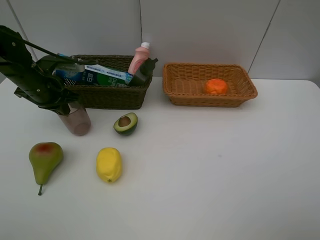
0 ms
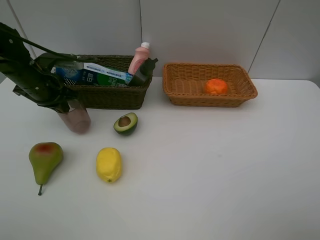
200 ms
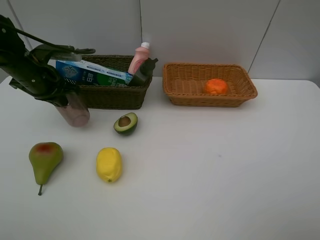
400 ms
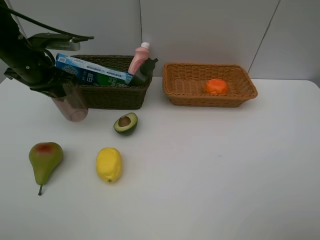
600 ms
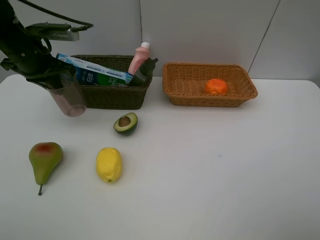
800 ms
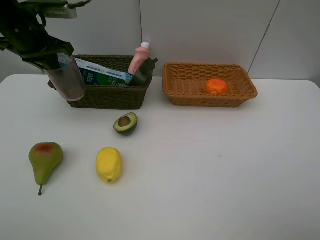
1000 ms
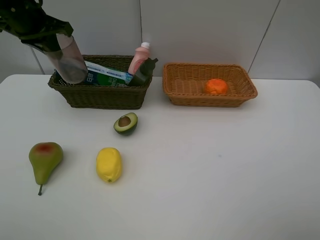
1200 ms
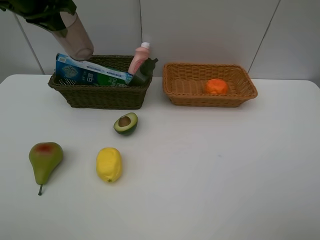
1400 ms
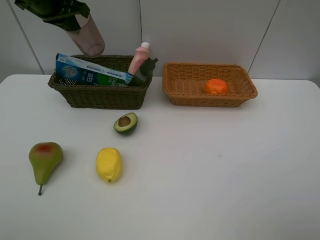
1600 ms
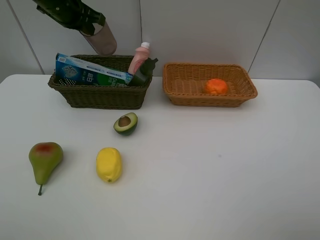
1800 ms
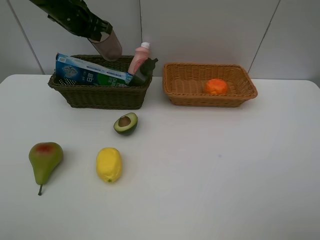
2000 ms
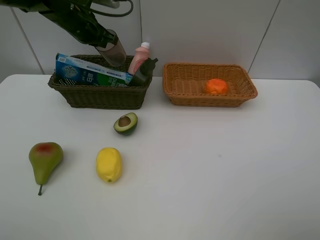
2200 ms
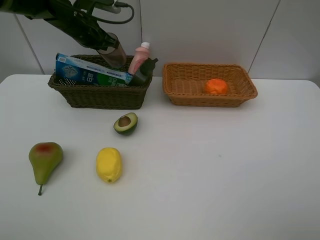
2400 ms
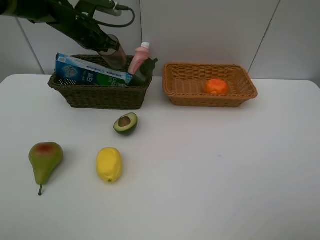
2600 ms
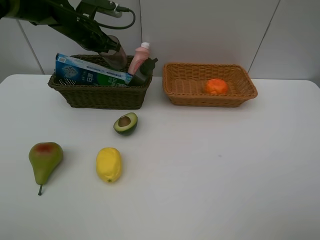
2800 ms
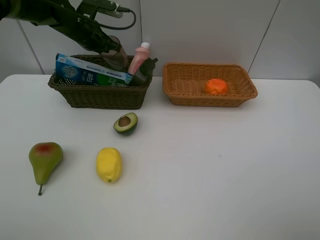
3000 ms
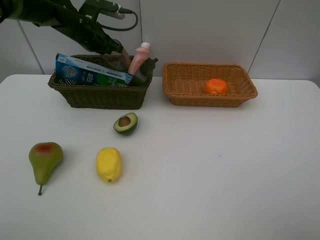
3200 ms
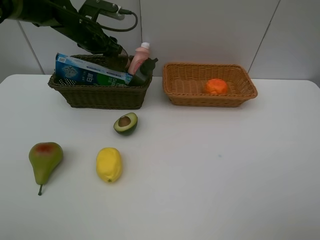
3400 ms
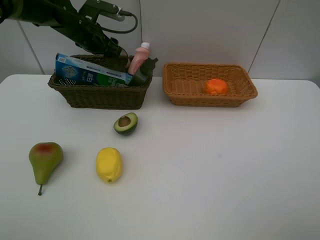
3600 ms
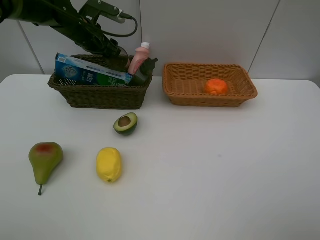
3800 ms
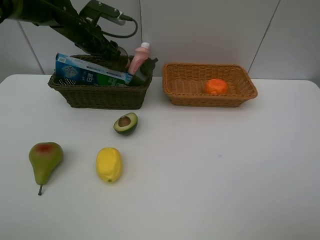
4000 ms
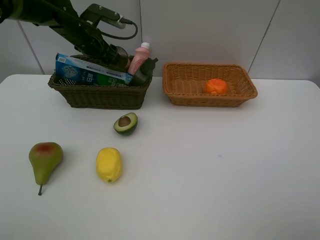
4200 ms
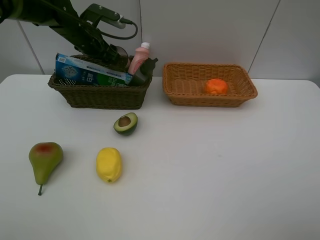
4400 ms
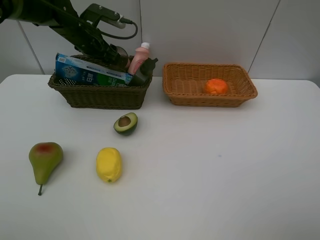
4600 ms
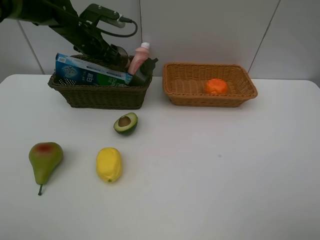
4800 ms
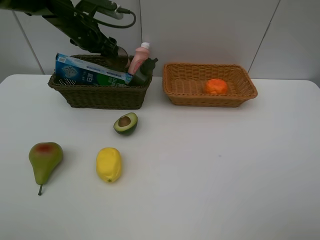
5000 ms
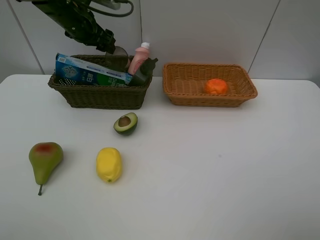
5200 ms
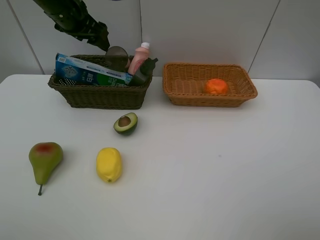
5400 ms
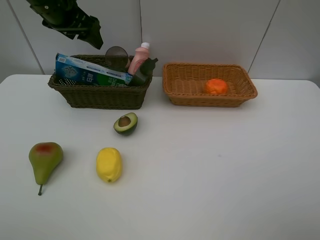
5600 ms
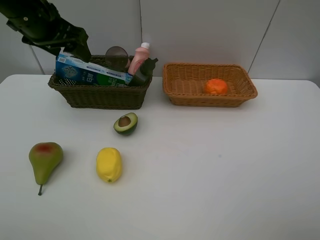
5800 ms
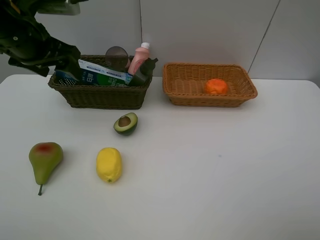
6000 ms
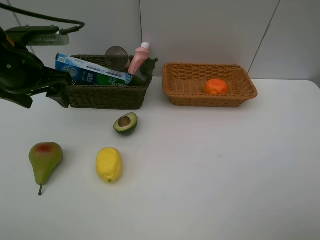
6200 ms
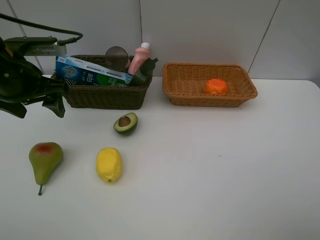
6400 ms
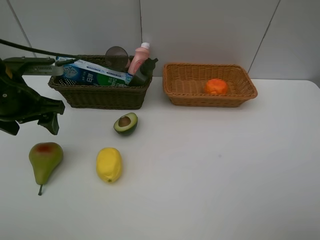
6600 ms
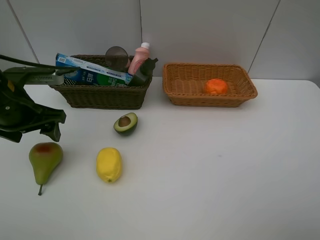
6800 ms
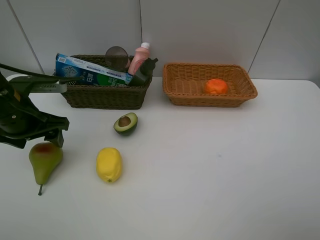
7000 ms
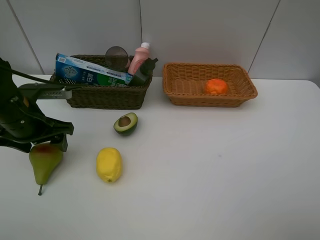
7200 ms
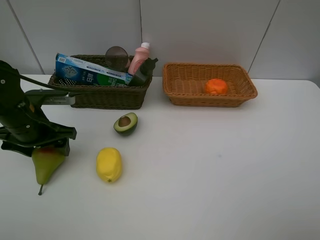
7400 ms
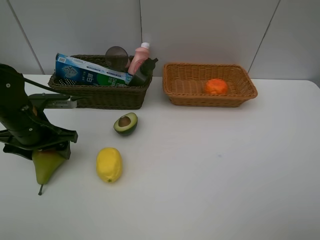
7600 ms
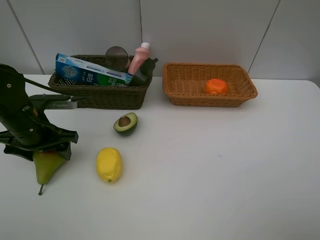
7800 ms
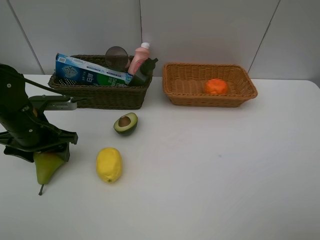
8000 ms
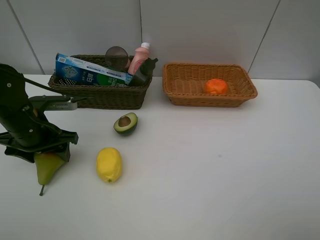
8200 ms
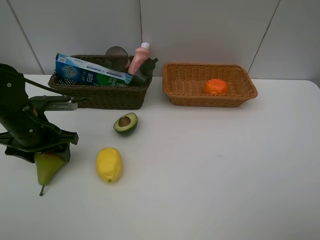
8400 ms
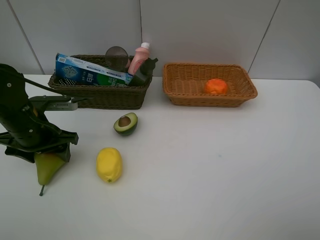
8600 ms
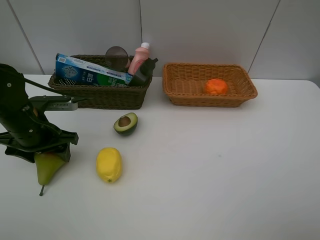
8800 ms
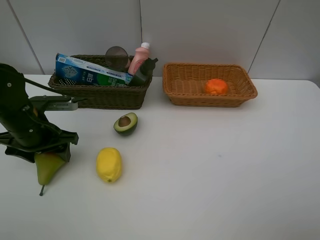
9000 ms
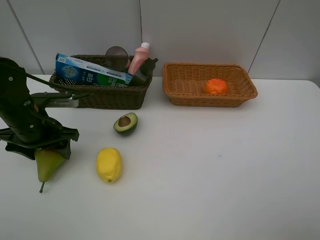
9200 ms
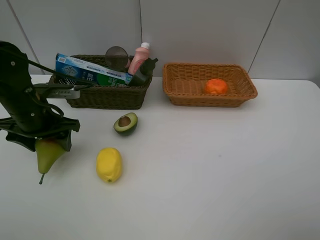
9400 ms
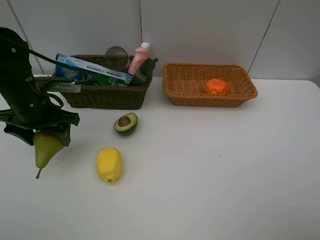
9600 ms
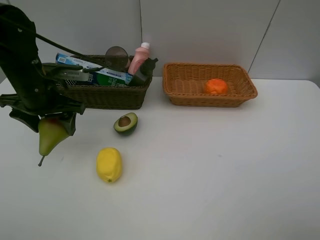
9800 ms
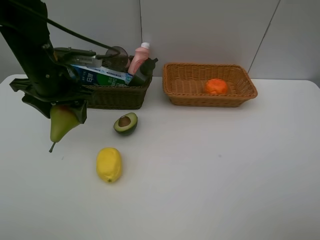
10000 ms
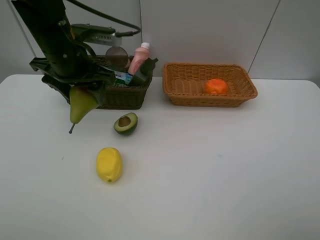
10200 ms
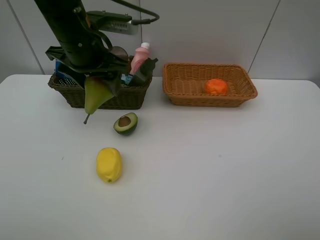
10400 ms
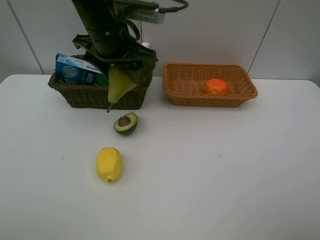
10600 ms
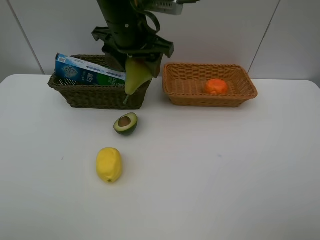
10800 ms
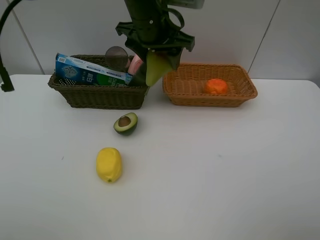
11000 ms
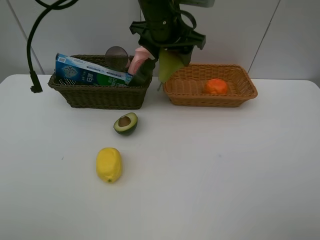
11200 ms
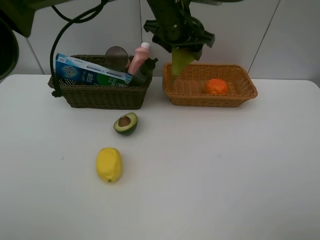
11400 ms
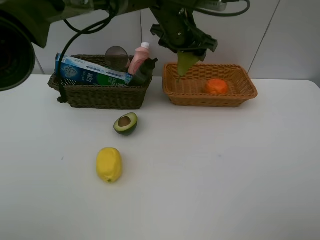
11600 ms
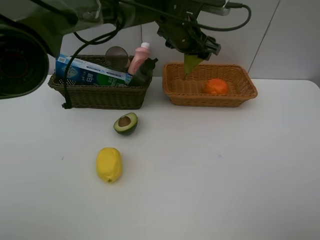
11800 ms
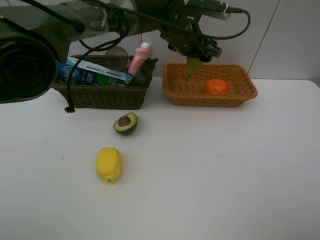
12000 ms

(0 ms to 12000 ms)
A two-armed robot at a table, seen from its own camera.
Task of the whole recording: Place multiple objects separately in different baskets.
Step, 600 ms - 5000 ms: Place the red cup in the dark basket with left gripper.
Step, 5200 ms - 9200 ms: Pick up the pear with left gripper.
0 ms - 1600 ms: The left gripper shifts approximately 15 cm upward and forward.
1600 ms - 3000 ms: The left gripper shifts about 10 cm downward and forward.
3000 ms - 4400 ms: The left gripper opens up.
4400 ms - 6000 ms: The left gripper is displaced backward and upward by roughly 20 cm.
6000 ms - 7600 ms: The left gripper heads downward, covering some 15 cm.
7600 ms - 9000 ms: The two grippers keep their place.
9000 ms - 10400 ms: The left gripper heads upward, to the right and forward, covering roughly 20 cm.
10400 ms - 12000 ms: The left gripper heads to the right and forward, covering roughly 20 cm.

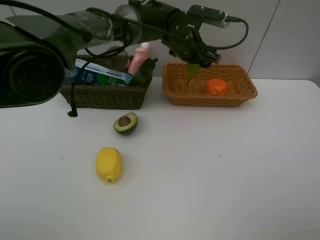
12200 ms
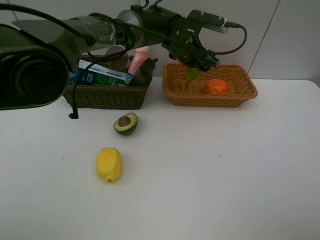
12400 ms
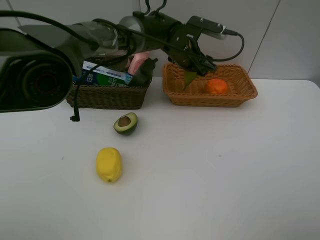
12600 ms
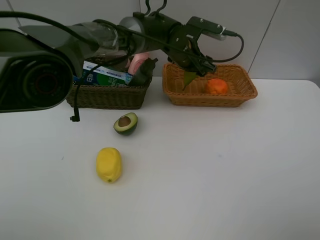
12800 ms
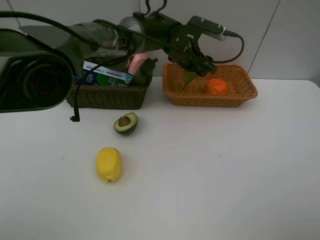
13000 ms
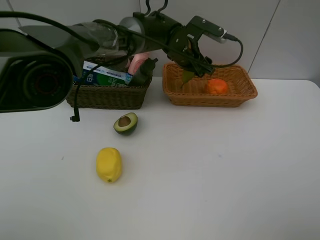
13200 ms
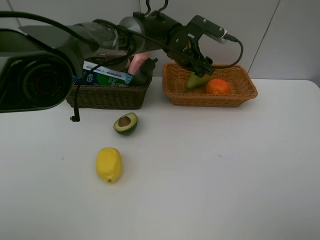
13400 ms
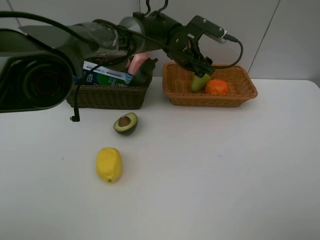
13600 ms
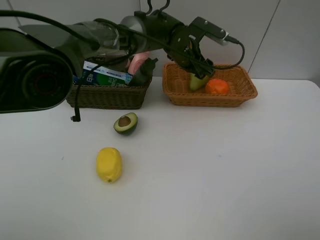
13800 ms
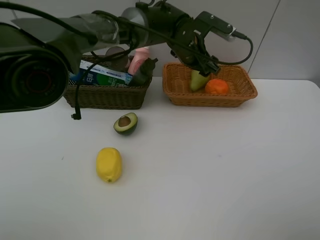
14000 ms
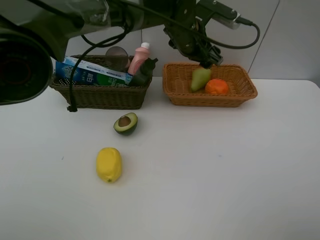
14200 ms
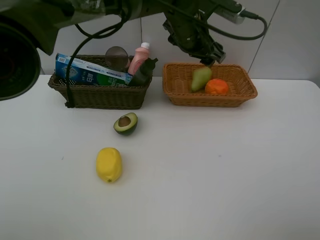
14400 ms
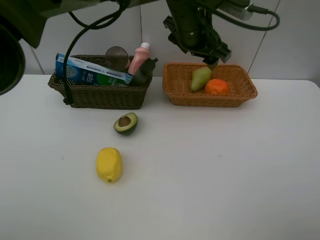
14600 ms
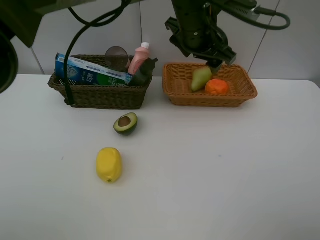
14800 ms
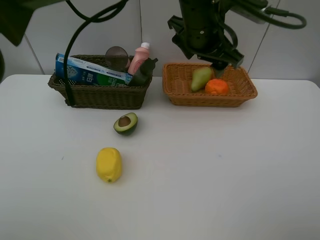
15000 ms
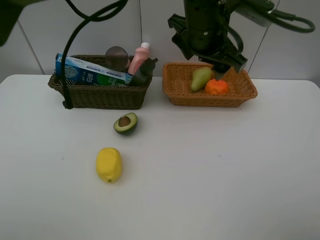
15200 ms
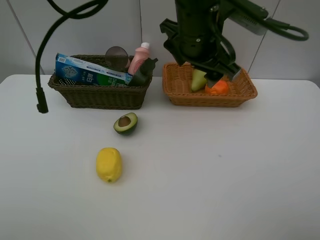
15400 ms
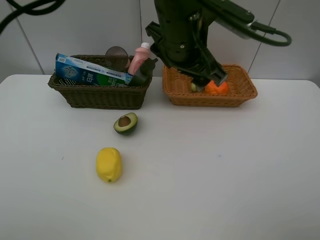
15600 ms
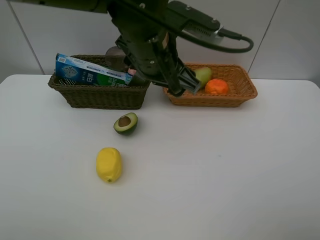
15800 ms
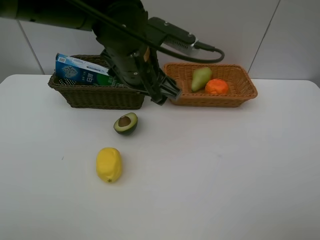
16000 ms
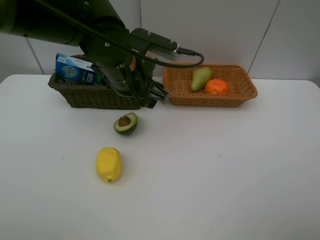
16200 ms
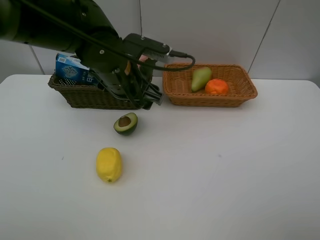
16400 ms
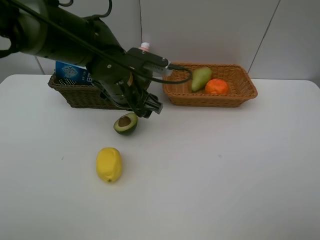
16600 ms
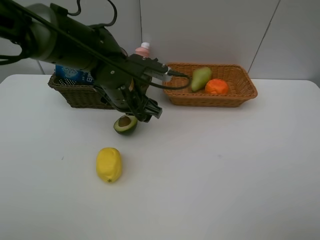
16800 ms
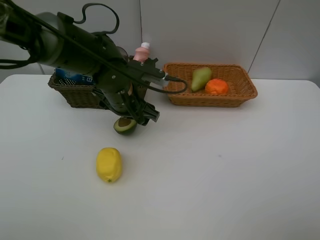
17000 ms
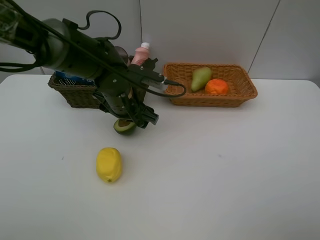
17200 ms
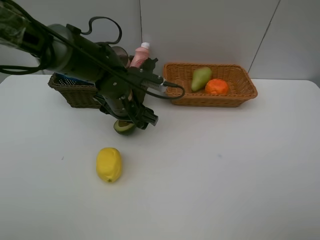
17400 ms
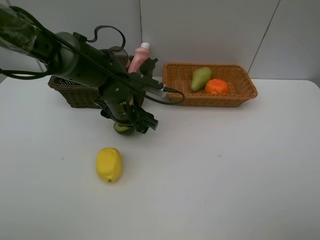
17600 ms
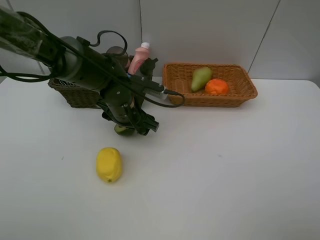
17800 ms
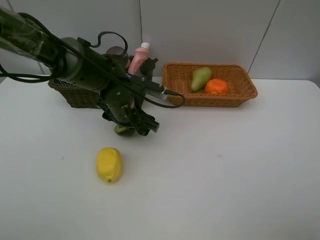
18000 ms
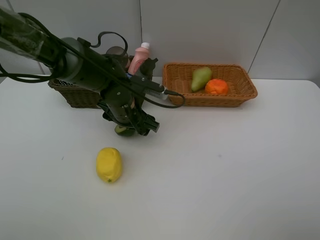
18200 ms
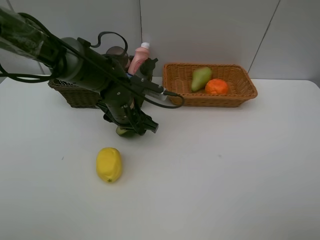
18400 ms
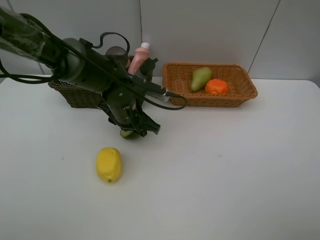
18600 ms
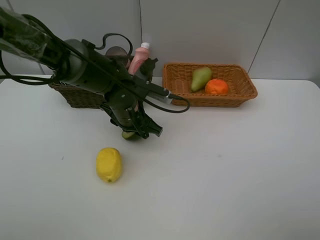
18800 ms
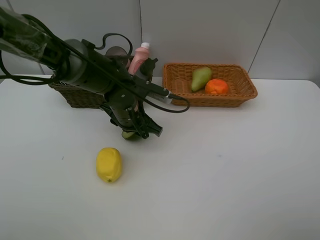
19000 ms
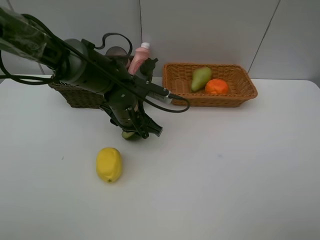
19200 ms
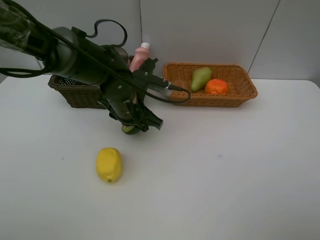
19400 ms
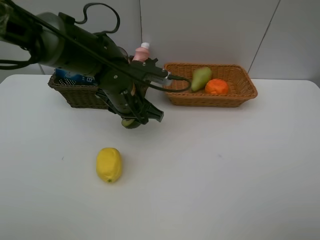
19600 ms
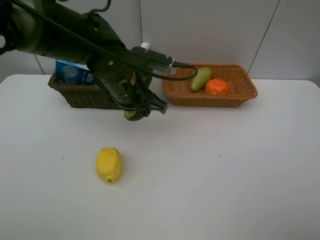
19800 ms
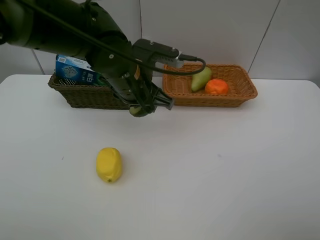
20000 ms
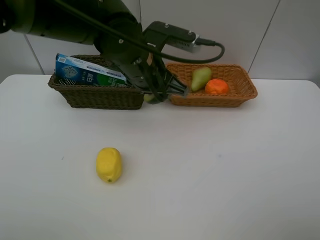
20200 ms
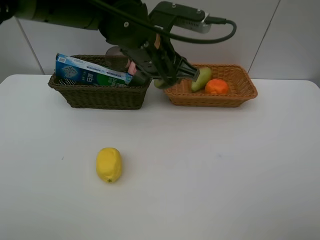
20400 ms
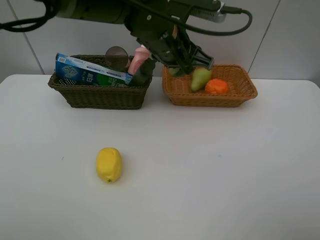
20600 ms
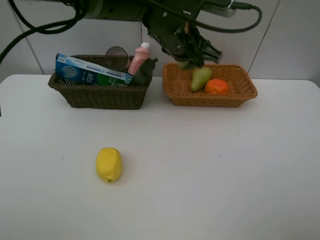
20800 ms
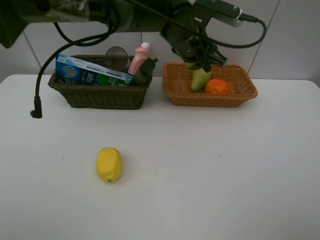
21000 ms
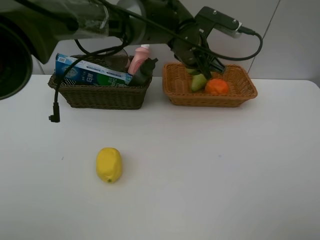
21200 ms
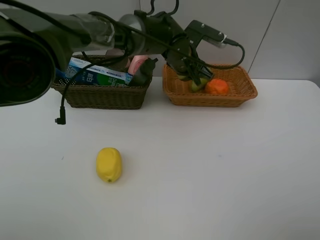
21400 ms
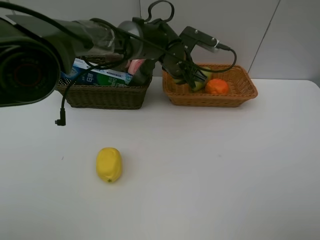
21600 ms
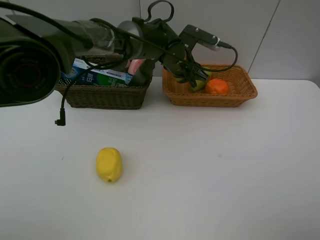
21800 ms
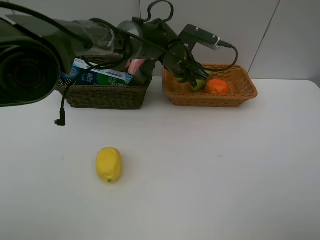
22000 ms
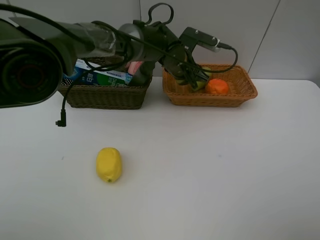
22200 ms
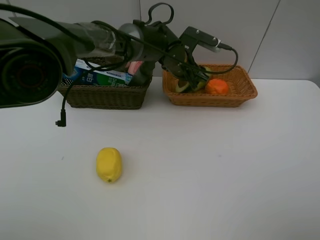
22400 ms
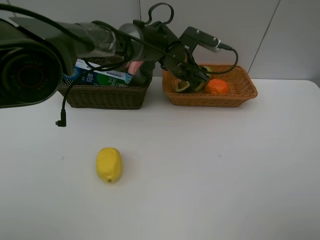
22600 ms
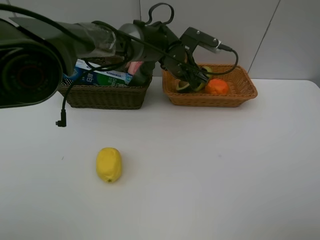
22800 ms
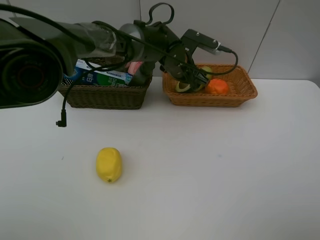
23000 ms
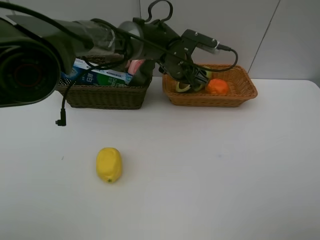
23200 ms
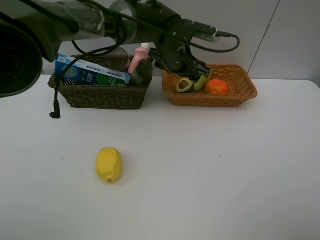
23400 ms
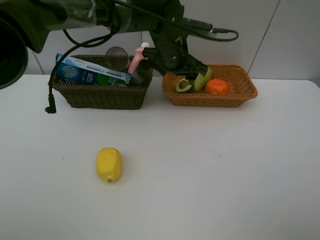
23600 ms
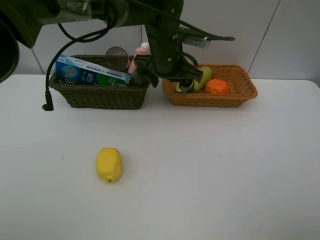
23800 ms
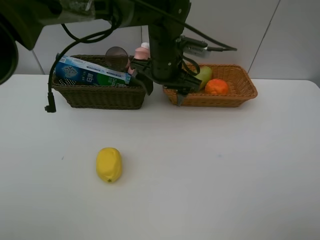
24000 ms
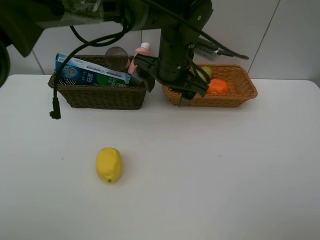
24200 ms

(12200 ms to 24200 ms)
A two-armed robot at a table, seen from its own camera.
Task of the whole recording: Place multiple objects separately in different baskets.
Step, 14200 ms - 19400 ms: Pick up the avocado with left gripper.
Step, 19600 ms - 23400 ms: Place the avocado in the light basket with left gripper.
12200 ms - 13800 ms: There are only small adjustments of the grippers.
13800 ms - 15200 ms: The left gripper moves backward and upward, some 15 cm.
15200 ms - 16600 ms: The left gripper moves to the left and downward, approximately 20 cm.
16600 ms - 18200 ms: The left gripper is displaced downward by some 5 cm.
18200 ms - 19800 ms: The left gripper shifts approximately 10 cm upward, and closes up.
19800 ms - 21200 ms: The left gripper travels to the right and forward by some 15 cm.
21200 ms - 22600 ms: The left gripper shifts by some 5 cm, and opens up.
22600 ms - 24200 ms: The left gripper travels backward and upward by some 10 cm.
